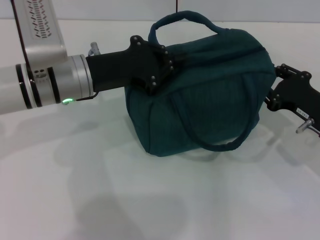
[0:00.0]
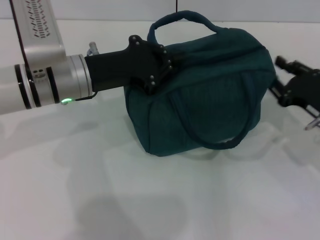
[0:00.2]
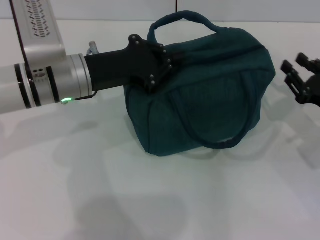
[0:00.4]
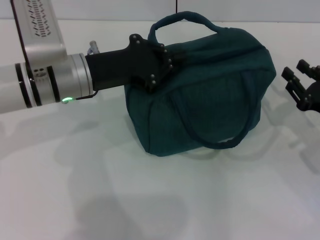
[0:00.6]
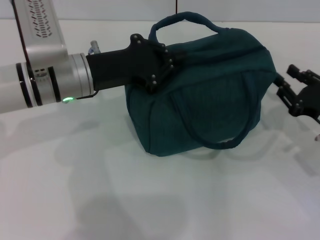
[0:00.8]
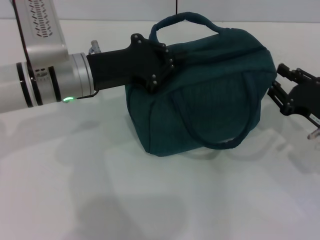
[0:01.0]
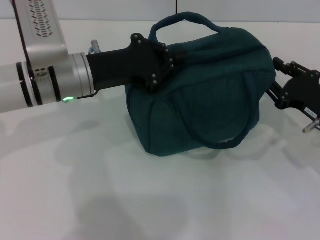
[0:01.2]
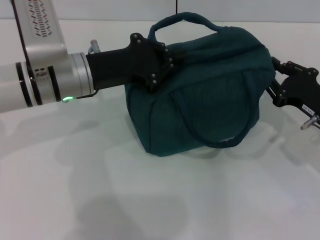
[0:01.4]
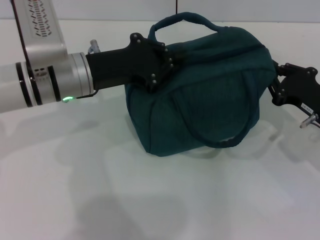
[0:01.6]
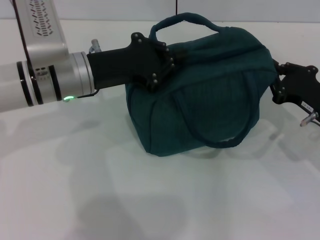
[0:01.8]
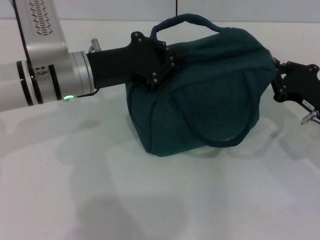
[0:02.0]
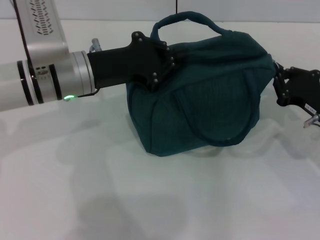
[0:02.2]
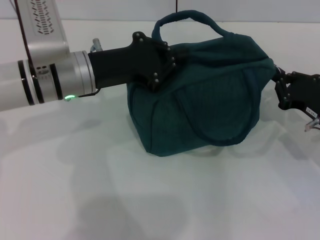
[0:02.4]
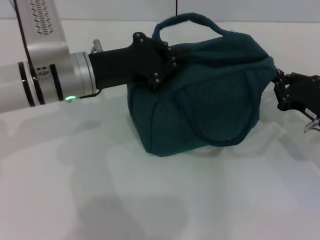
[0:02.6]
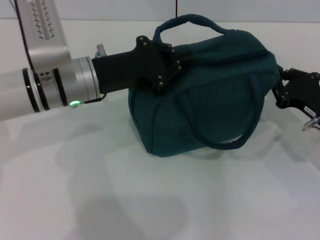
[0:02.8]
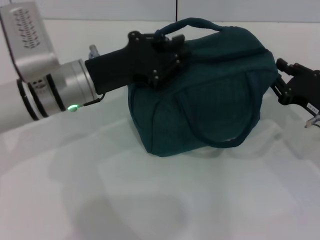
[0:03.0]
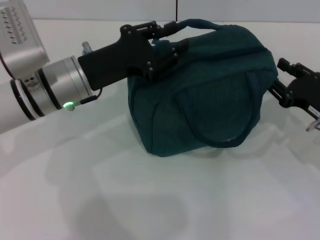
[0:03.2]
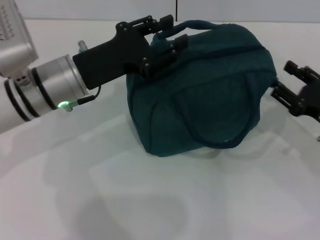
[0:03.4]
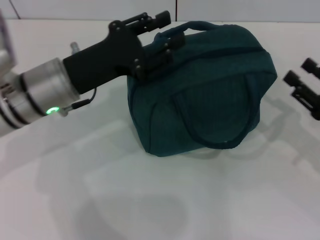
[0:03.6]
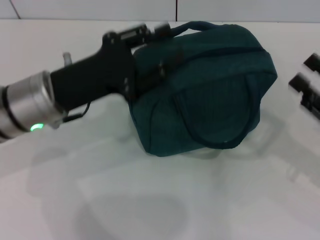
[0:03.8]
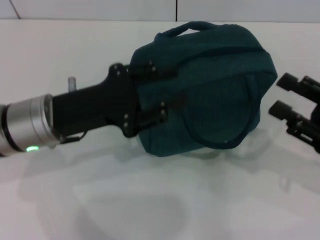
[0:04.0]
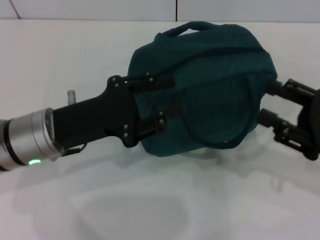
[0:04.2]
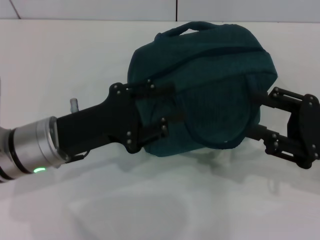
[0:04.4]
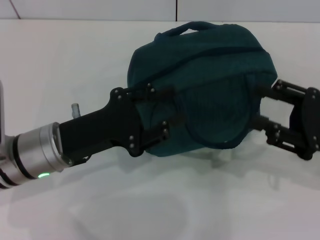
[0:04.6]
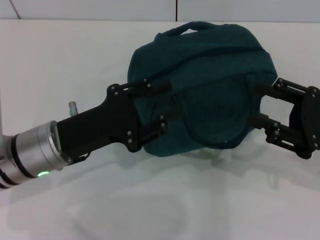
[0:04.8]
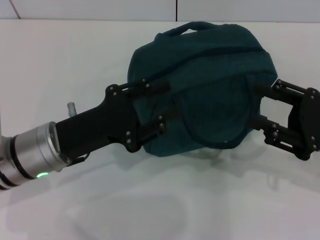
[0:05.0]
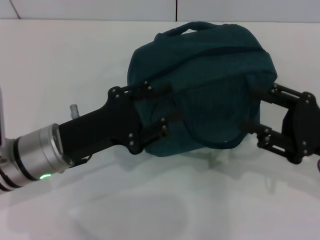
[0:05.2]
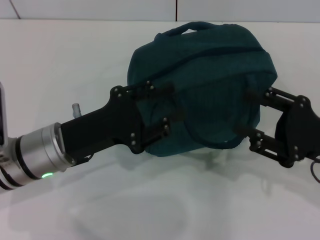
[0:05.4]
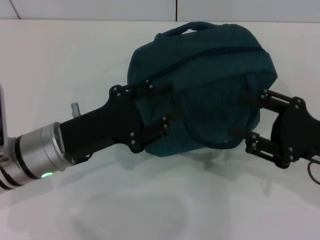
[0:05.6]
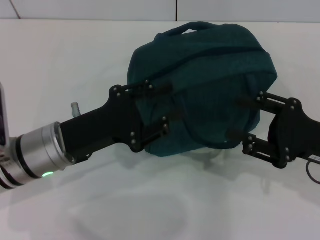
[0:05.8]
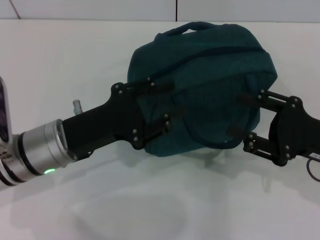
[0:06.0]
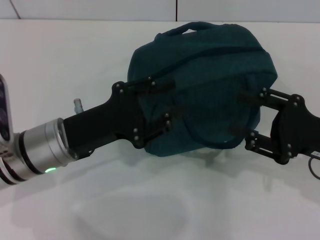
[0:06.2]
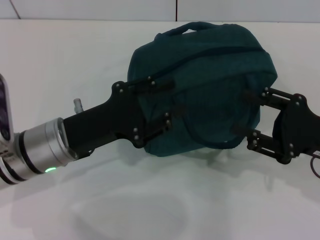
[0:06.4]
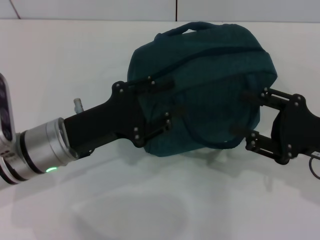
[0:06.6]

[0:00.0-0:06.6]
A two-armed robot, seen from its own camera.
Step, 0:00.0 to 0:03.0: Hold the lunch bag with your left hand.
0:00.0 to 0:03.2: The grippers make only small movements.
0:03.2 to 0:05.0: The right gripper shifts about 5 cm upward, and opens its fingers; the left gripper travels backward by approximately 10 cm.
0:05.0 to 0:06.6: The grippers move only a little.
